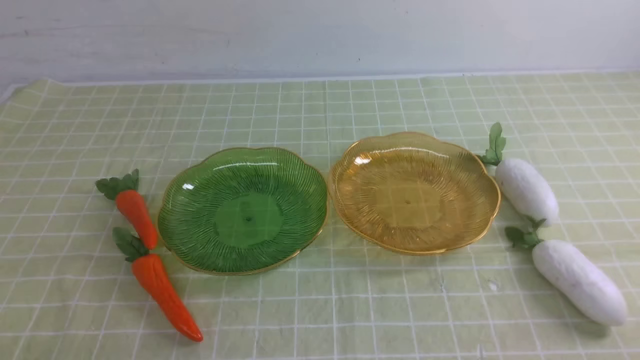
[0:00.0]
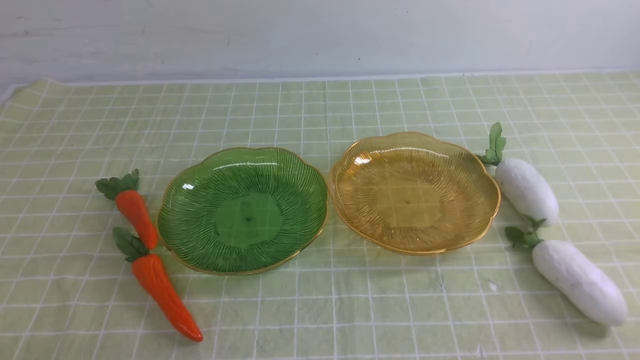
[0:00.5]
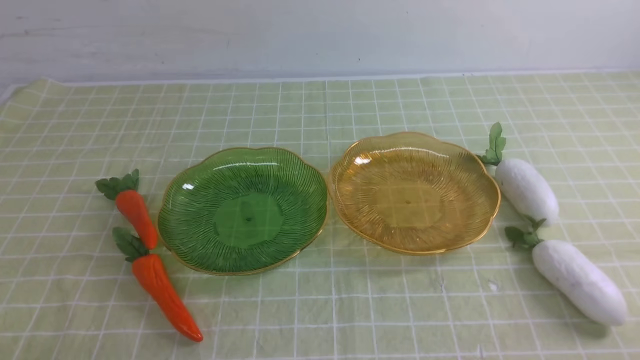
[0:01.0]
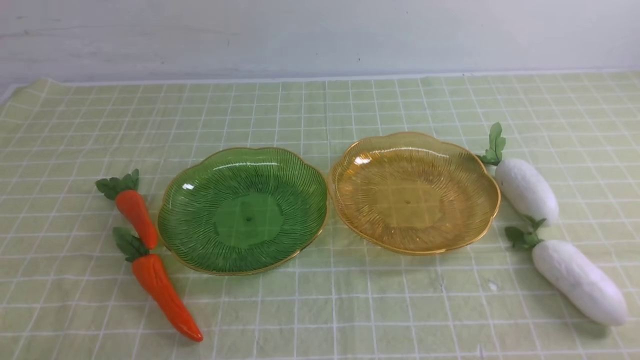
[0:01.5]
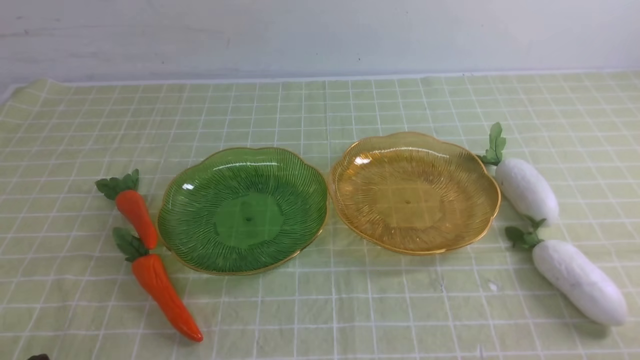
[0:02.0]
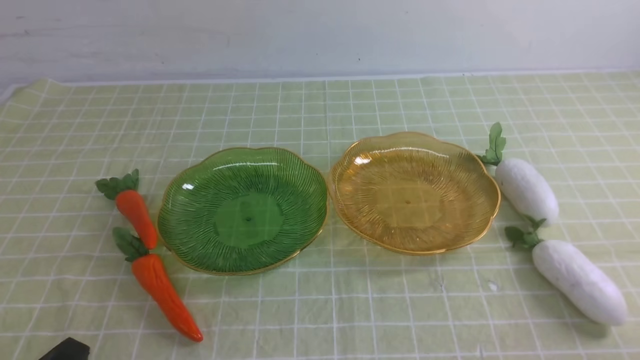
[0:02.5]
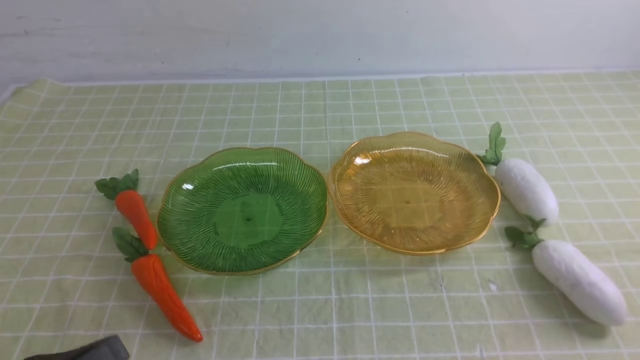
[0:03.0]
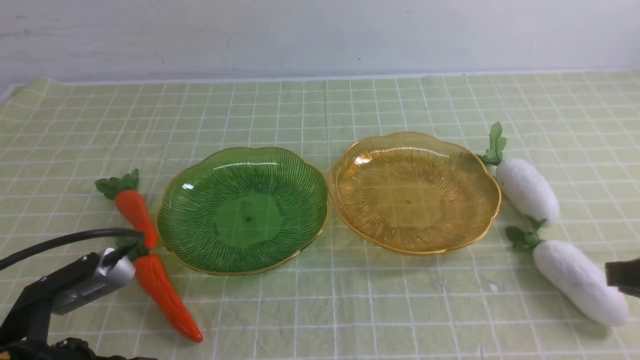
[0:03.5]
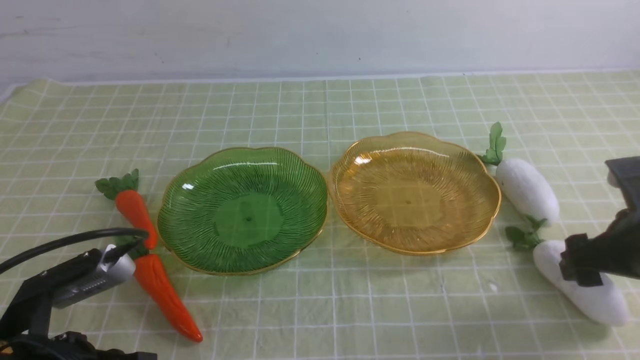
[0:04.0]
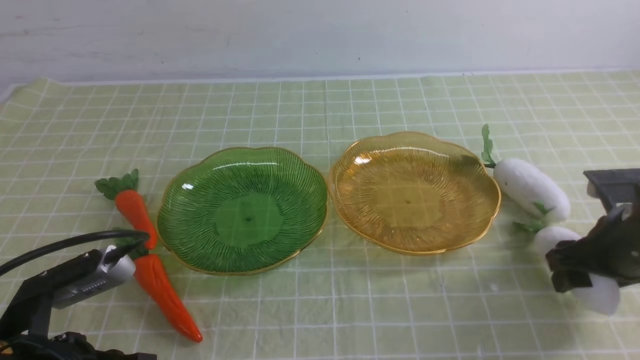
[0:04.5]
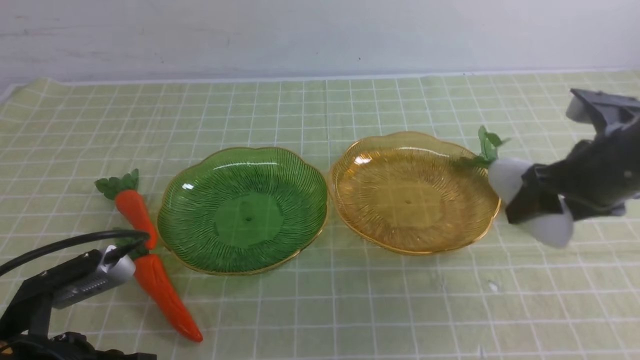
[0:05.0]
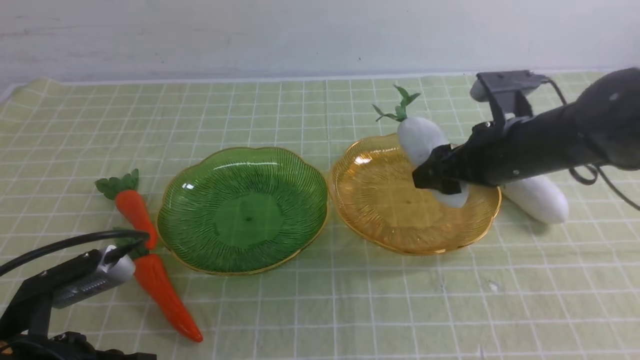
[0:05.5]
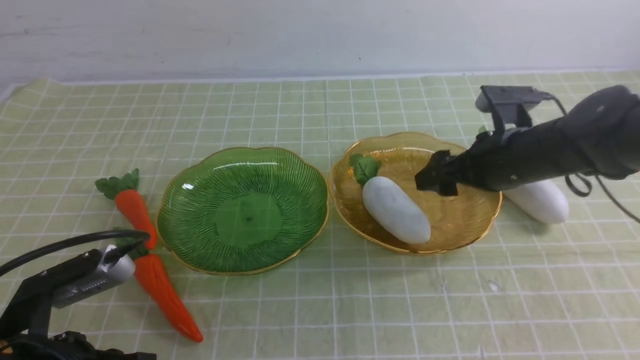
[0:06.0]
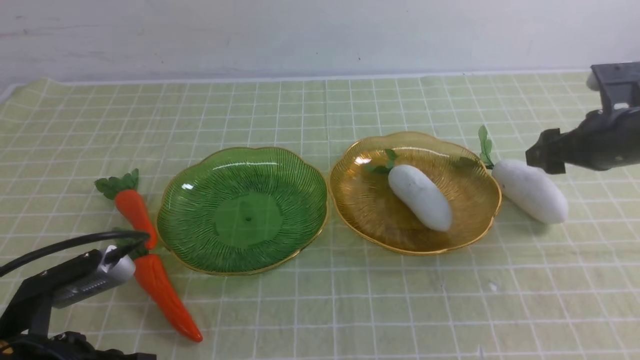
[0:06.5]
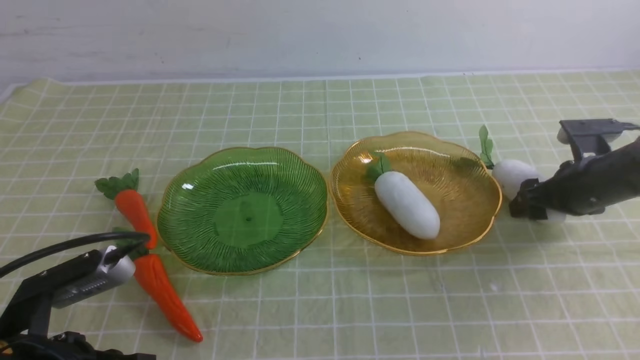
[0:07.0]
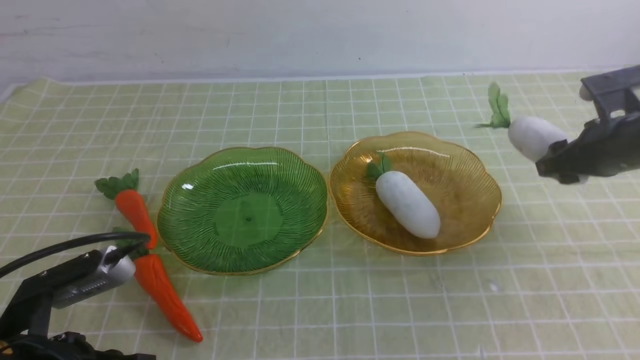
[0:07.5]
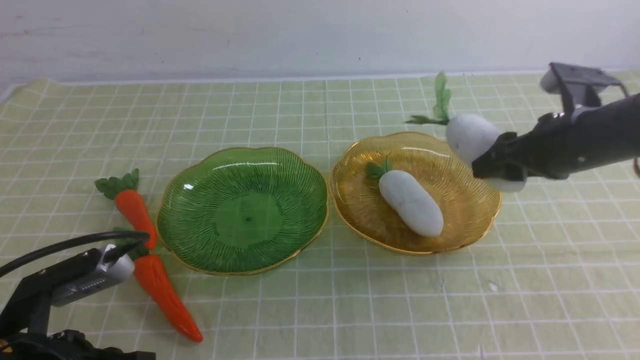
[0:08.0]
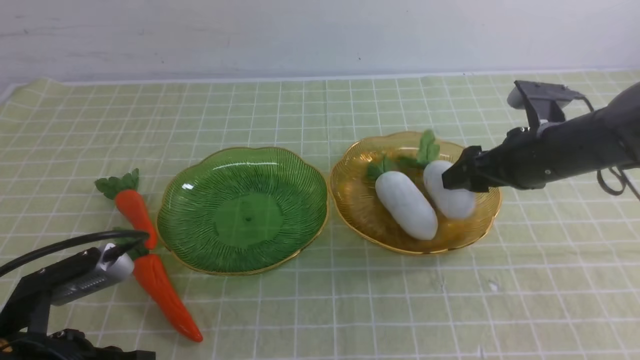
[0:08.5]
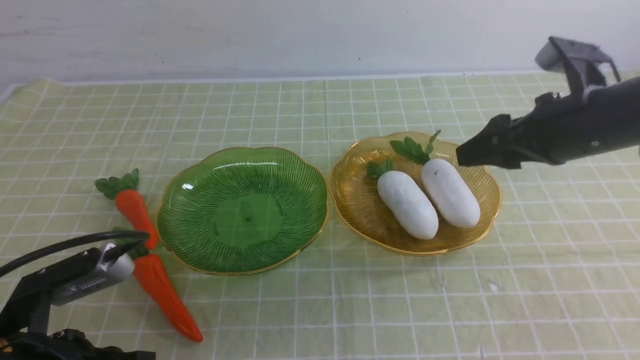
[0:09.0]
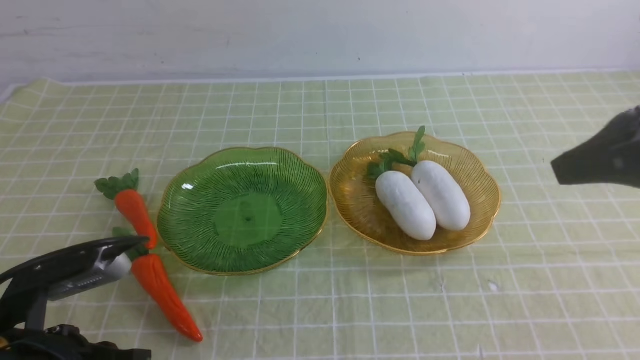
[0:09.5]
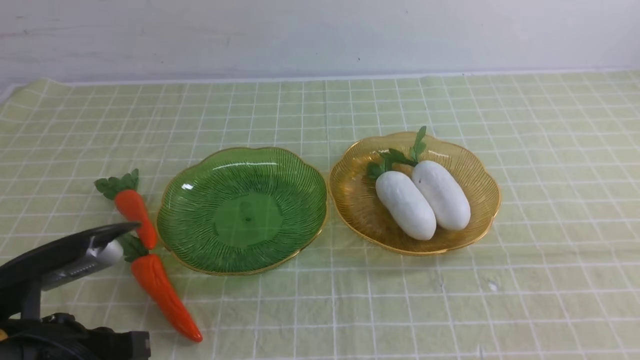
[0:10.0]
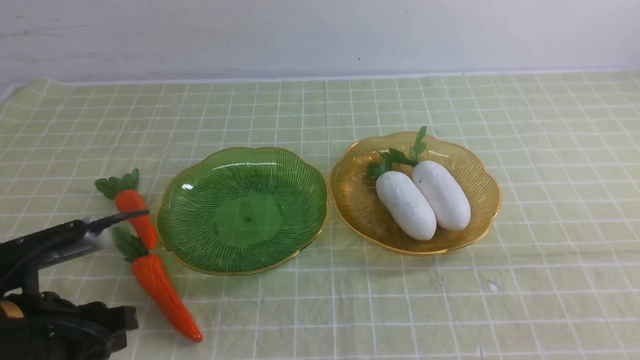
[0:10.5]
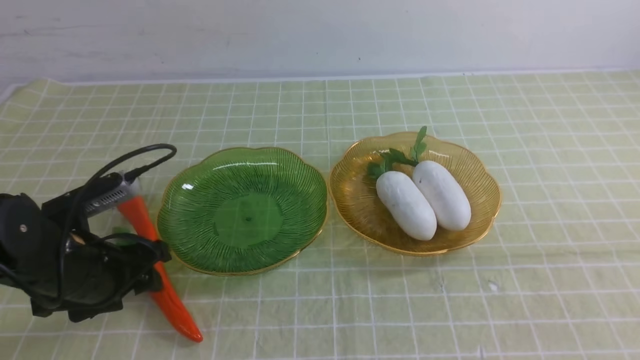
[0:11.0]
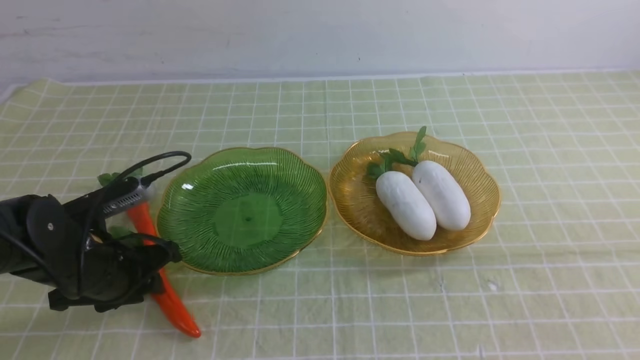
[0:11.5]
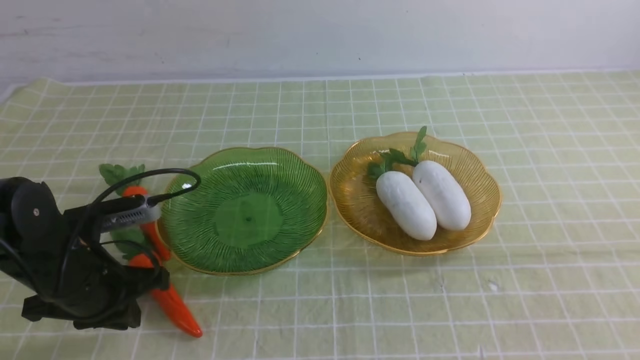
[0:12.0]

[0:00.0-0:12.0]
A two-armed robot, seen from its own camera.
Step, 0:00.0 to 0:09.5: use the right arm to grab a radish and put it into the right plate.
0:02.0 to 0:04.0: The right gripper heads forward, covering some 20 cm, and opens up. Meanwhile the left gripper moves forward and upward, some 10 cm.
0:04.0 to 0:06.0: The right gripper is displaced forward and to the left by about 15 cm.
0:08.0 to 0:10.0: The right gripper shifts some 25 cm backward and upward, and closes up.
0:10.0 to 0:12.0: The left gripper goes roughly 10 cm forward, and opens, then closes again.

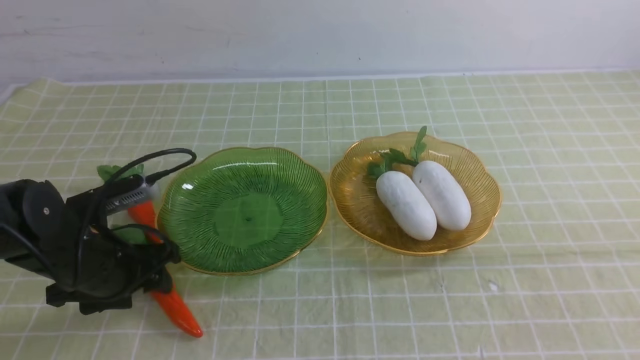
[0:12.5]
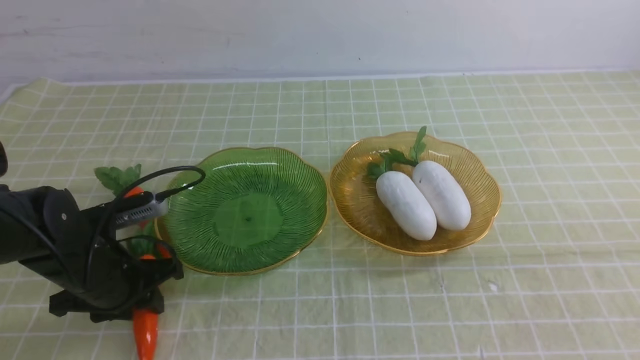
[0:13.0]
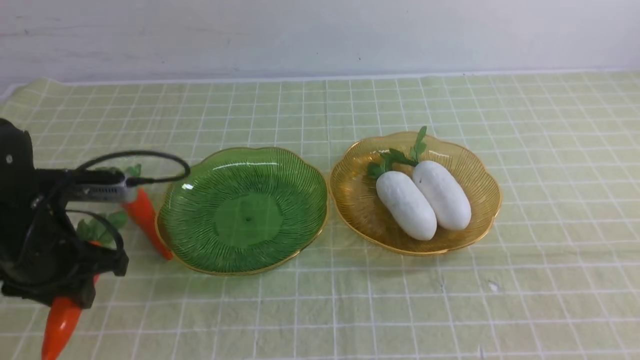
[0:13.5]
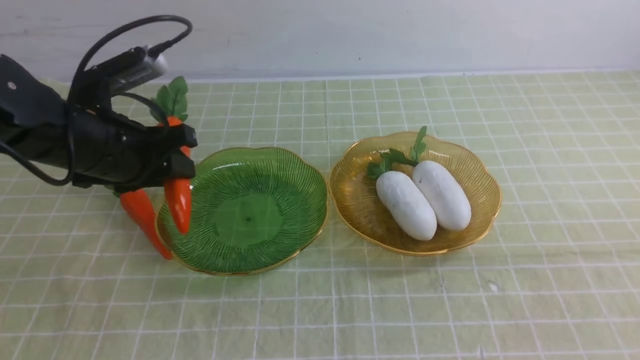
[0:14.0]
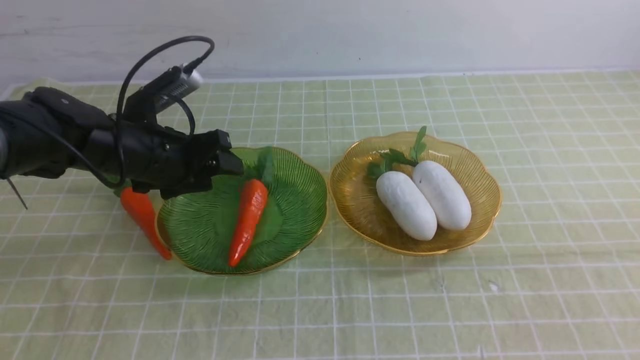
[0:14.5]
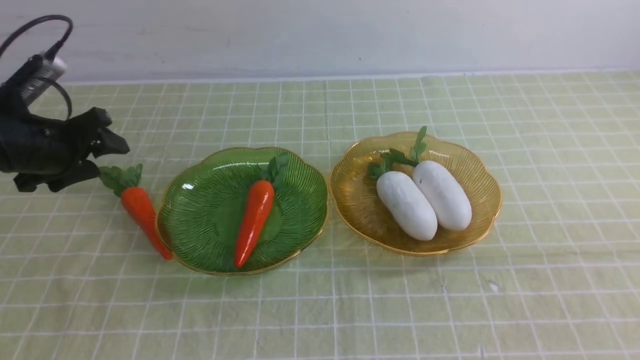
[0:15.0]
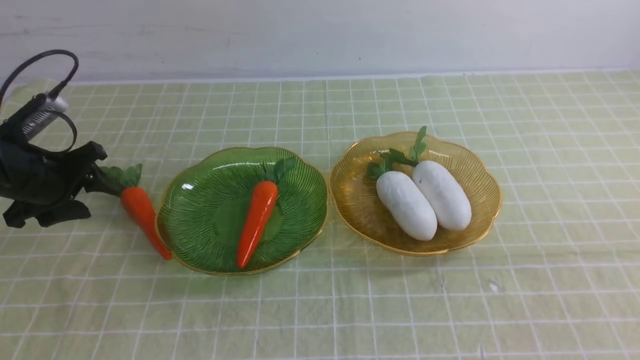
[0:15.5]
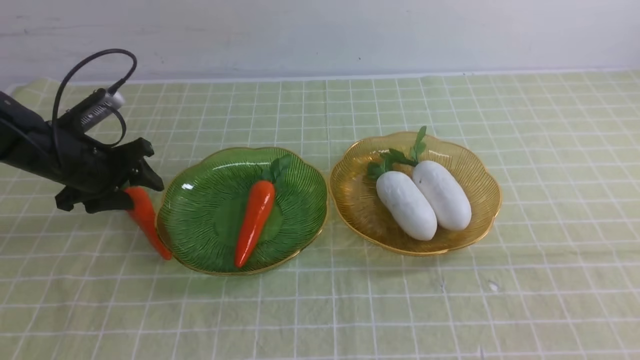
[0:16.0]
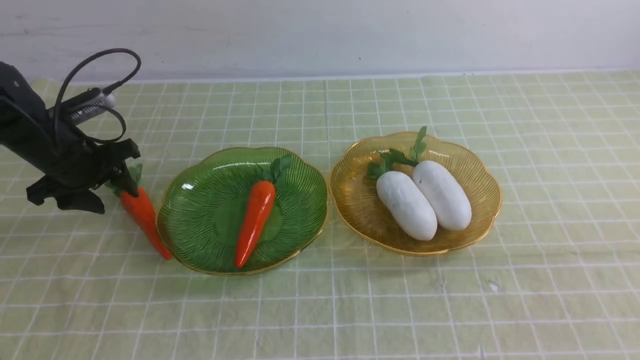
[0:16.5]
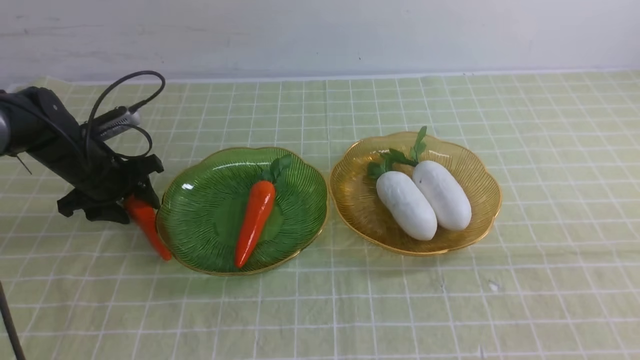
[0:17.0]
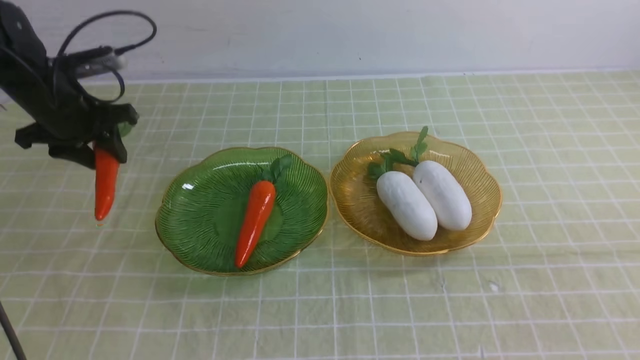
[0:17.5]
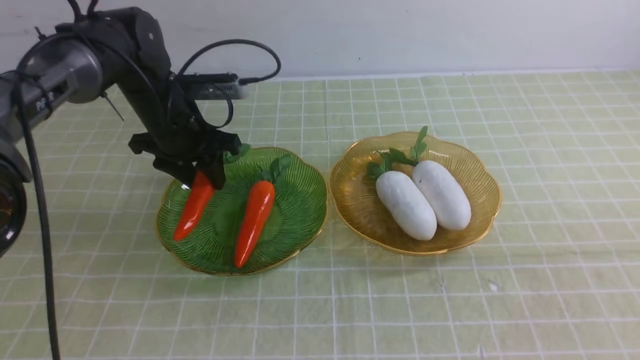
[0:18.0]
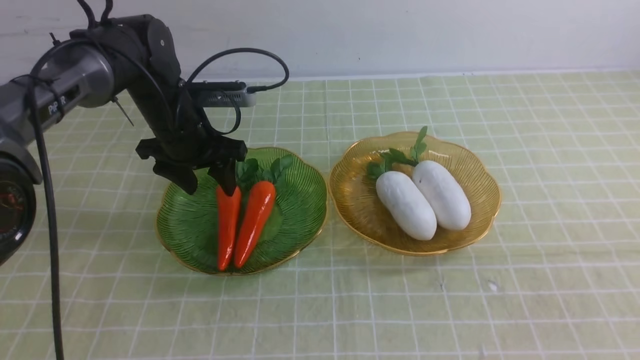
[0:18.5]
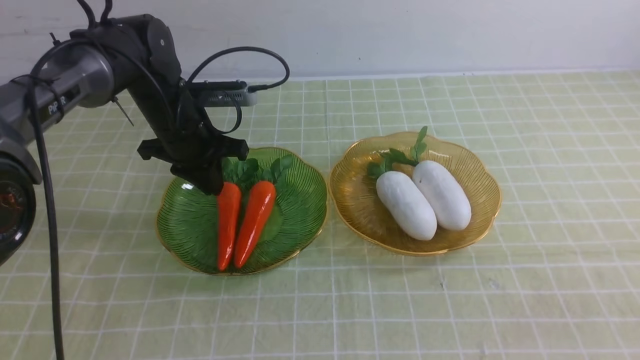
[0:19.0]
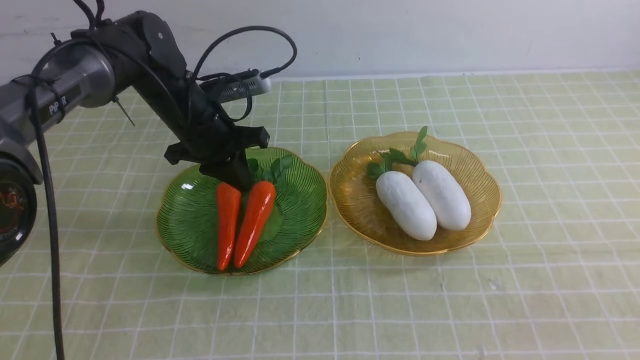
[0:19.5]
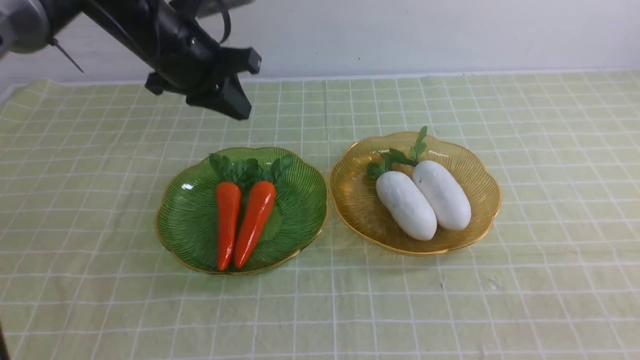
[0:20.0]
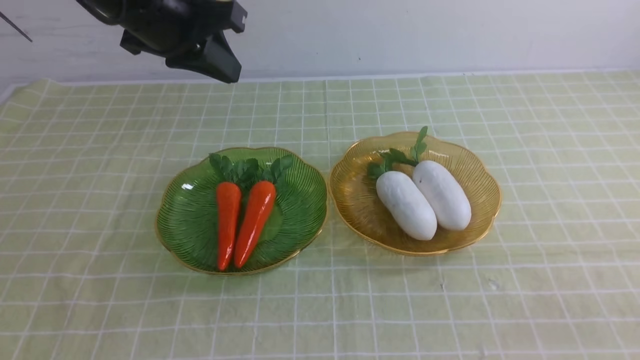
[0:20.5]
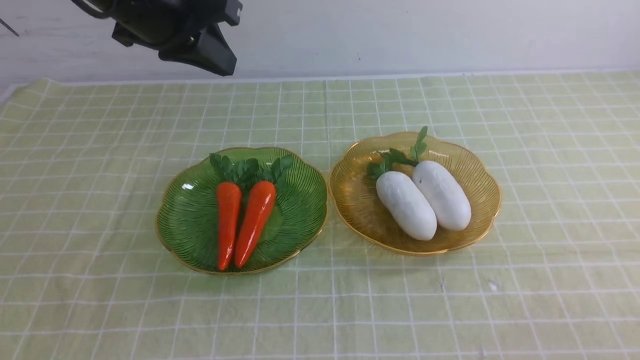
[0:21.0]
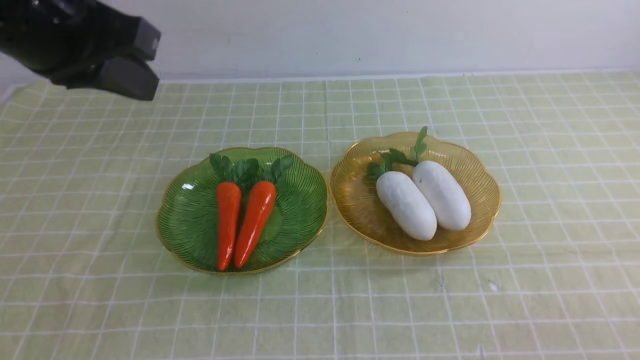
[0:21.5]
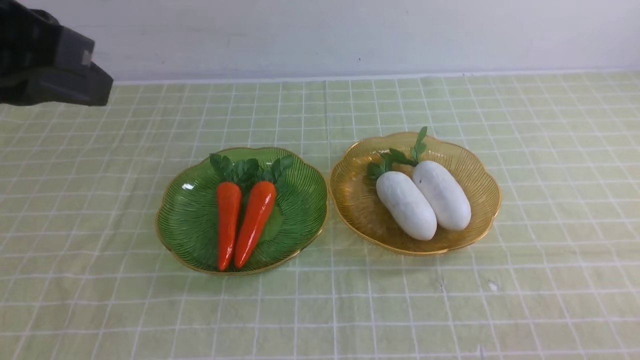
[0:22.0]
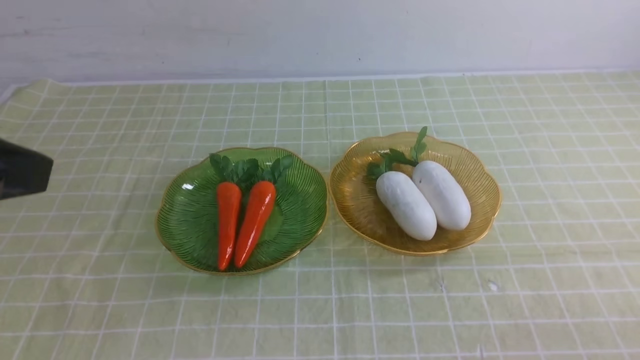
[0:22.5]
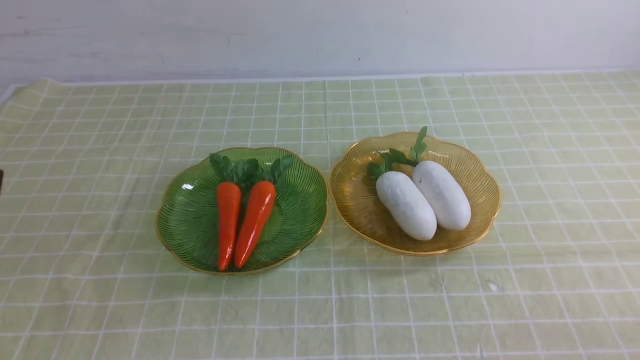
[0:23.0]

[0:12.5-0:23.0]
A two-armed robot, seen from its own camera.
Step, 0:12.5 to 0:20.0: use the left arm to grab a carrot and put it into the left plate.
0:12.5 to 0:14.5: The left gripper moves forward and upward, about 10 cm, and closes, then opens again.
0:14.5 to 0:16.5: The left gripper shifts about 10 cm to the left.
0:16.5 to 0:19.0: The right gripper shifts about 10 cm backward, while the left gripper is displaced to the right by approximately 15 cm, and closes up.
0:19.0 to 0:21.0: The left gripper travels upward and backward by approximately 20 cm, while the right gripper moves downward, some 10 cm.
0:21.0 to 0:23.0: The left gripper heads backward, covering approximately 30 cm.
